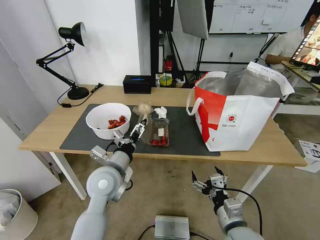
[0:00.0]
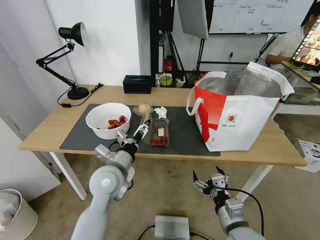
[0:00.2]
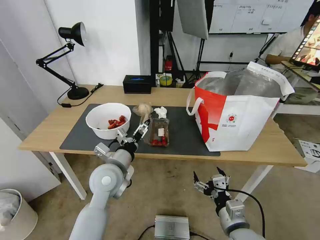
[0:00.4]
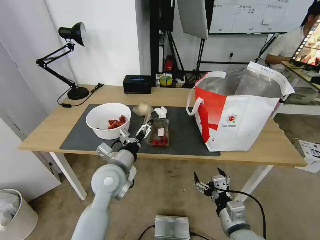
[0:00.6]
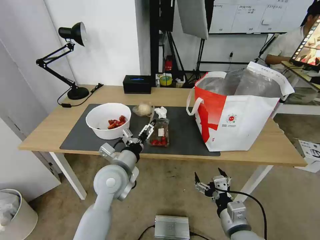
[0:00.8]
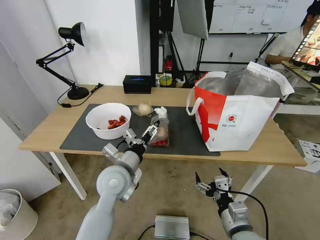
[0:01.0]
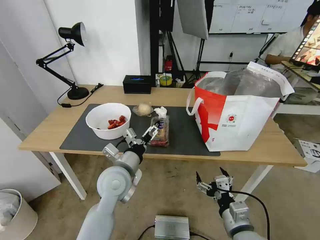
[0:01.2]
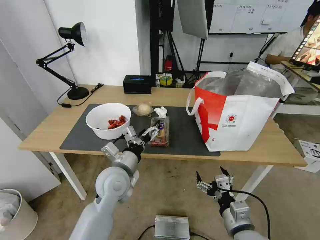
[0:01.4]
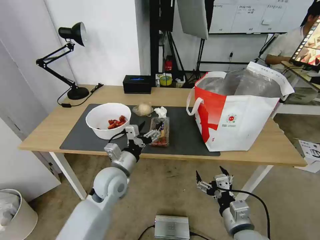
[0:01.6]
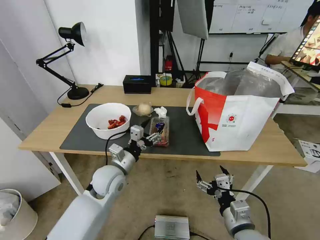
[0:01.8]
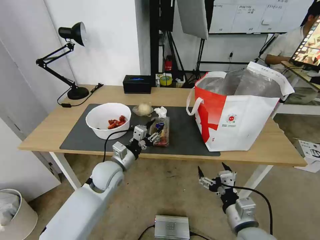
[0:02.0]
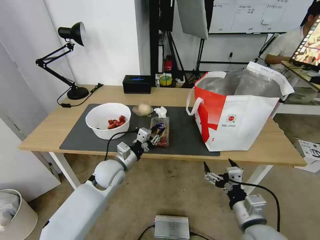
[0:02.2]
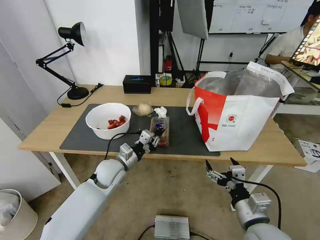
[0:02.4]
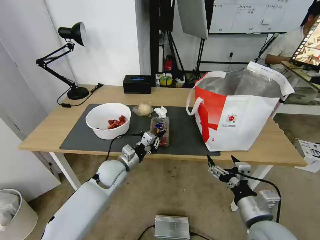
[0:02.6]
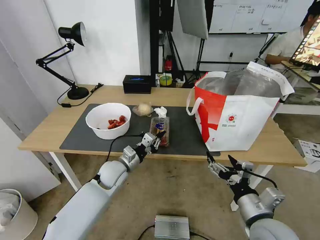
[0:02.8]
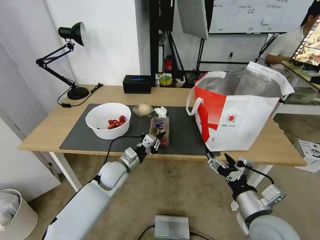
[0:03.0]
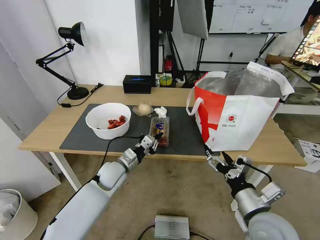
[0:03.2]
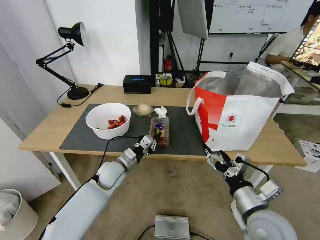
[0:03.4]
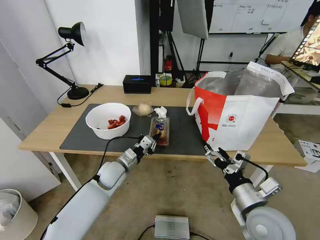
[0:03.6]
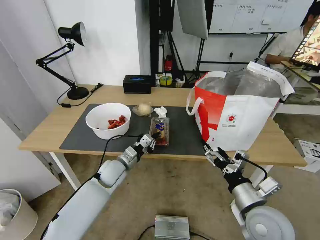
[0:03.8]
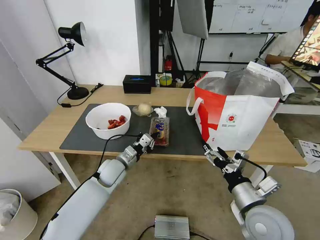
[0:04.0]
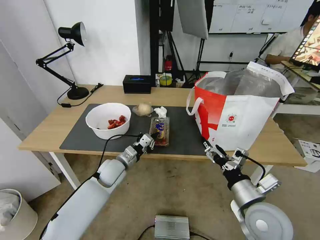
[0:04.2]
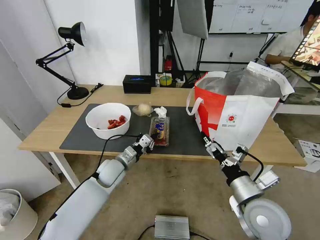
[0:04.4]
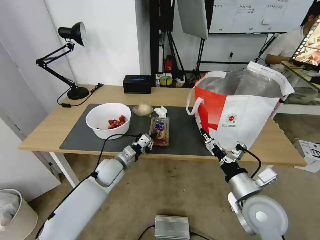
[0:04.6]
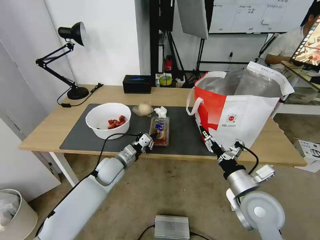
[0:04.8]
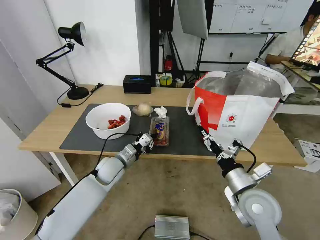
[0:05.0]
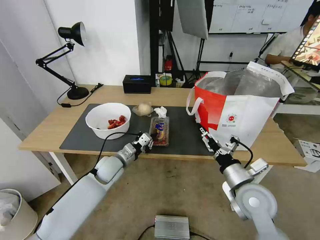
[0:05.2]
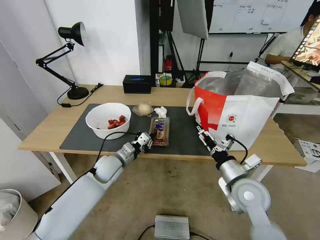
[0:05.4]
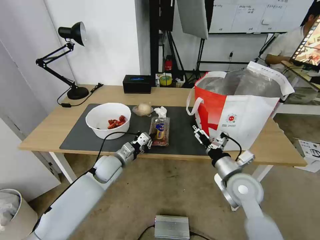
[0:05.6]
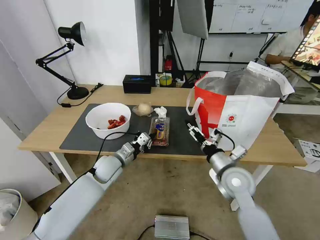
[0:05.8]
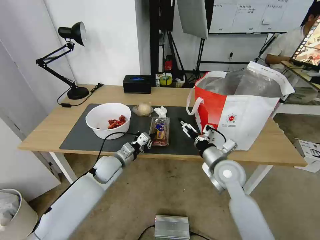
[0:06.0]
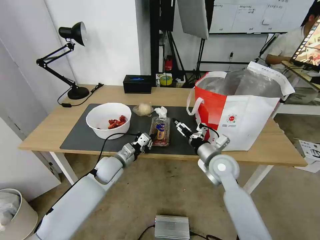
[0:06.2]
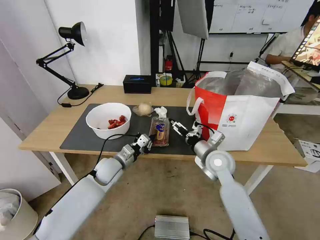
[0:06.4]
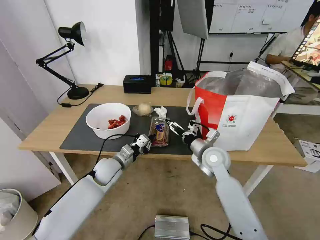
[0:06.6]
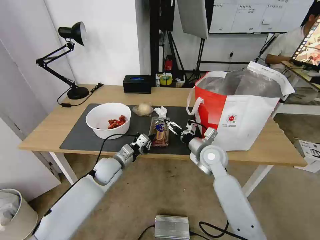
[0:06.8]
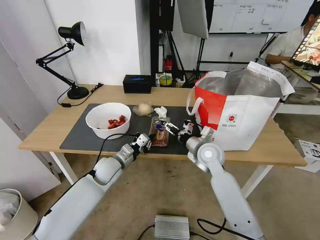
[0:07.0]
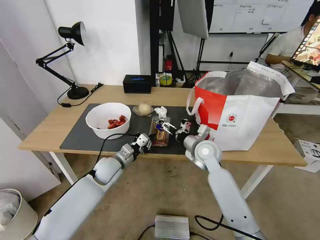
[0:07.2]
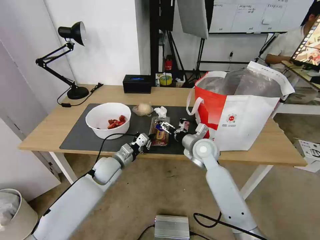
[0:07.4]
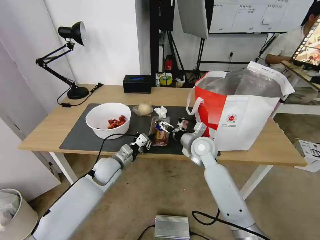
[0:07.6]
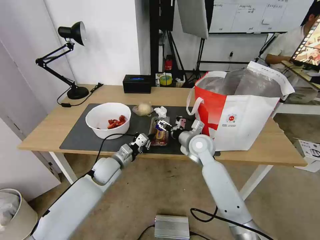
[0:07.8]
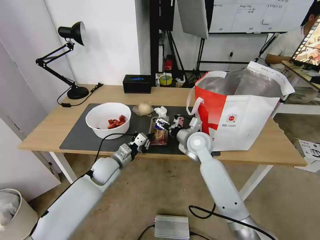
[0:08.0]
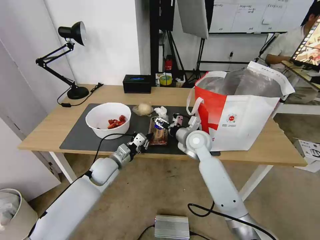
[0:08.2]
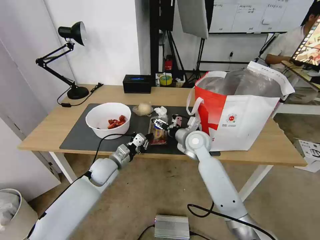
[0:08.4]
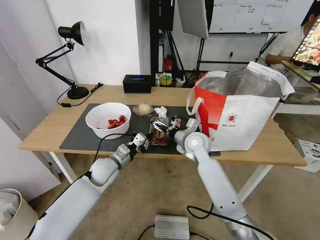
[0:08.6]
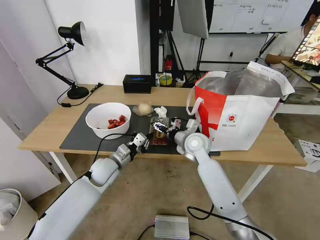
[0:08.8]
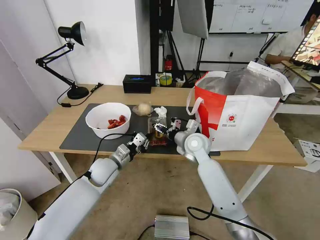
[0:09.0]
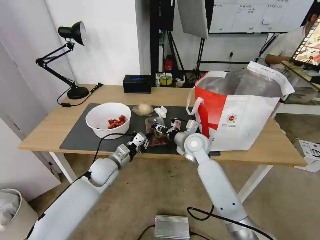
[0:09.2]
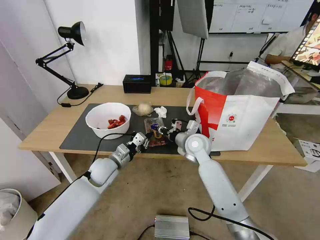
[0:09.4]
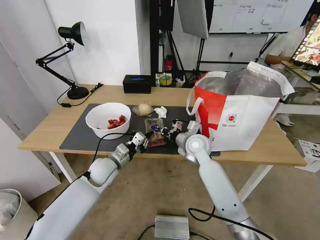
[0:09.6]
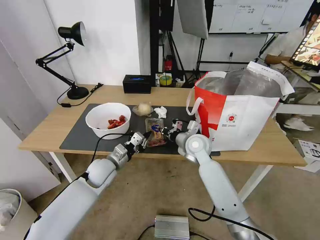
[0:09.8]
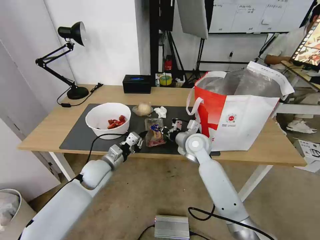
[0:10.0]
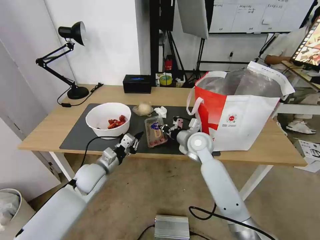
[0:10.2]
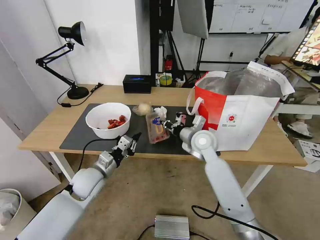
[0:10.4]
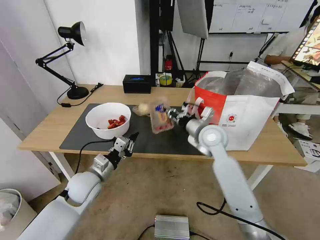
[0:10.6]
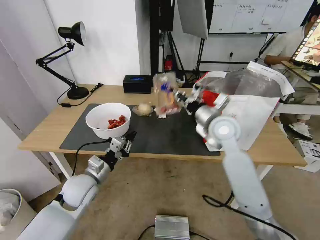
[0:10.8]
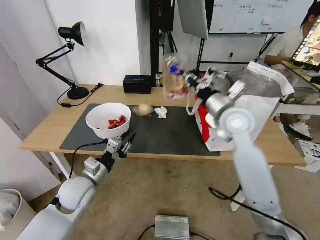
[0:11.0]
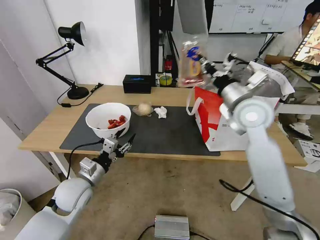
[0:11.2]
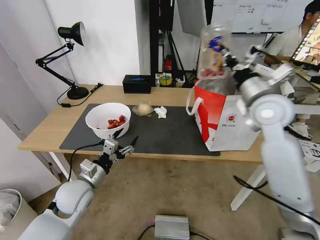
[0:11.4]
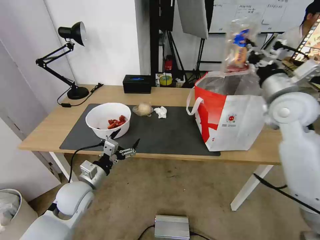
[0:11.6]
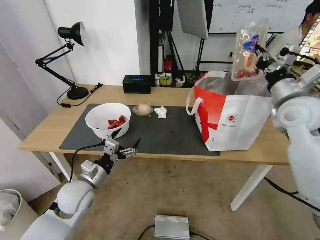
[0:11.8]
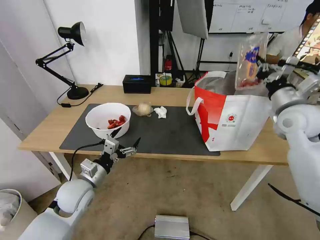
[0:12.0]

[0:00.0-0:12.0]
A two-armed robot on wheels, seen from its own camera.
Task of the whole recording: Pick up the trash from the table and place it into the takeout bag.
0:01.6 to 0:03.0: The right gripper shifts some 5 cm upward, while the left gripper is displaced downward and forward by approximately 10 cm, and closes up.
0:03.0 to 0:04.4: There are only small adjustments of the grippers.
0:04.4 to 0:06.0: The right gripper travels forward by approximately 15 cm.
0:06.0 to 0:07.6: The right gripper goes about 10 cm forward and to the left.
0:07.6 to 0:09.0: The grippers stay close to where they were, moving slightly.
0:09.0 to 0:10.4: The right gripper closes its fingers. The left gripper travels backward by approximately 5 cm.
0:10.4 to 0:12.0: The left gripper opens up. Meanwhile the right gripper goes about 25 cm to the right and upward.

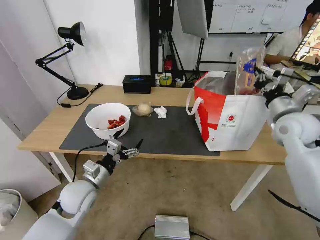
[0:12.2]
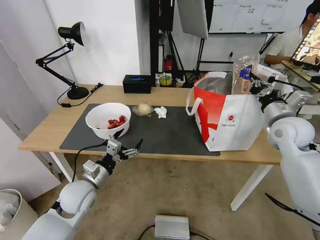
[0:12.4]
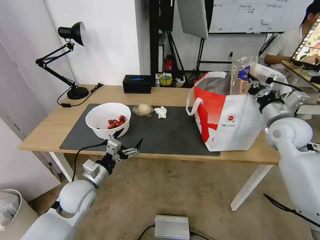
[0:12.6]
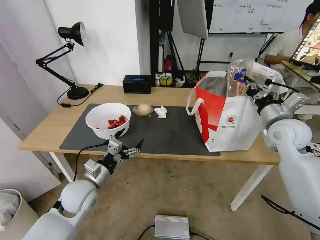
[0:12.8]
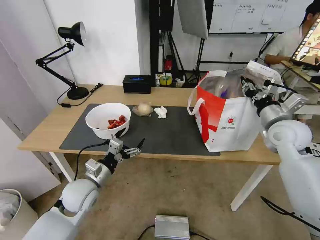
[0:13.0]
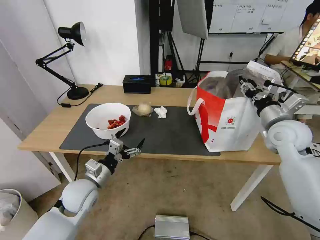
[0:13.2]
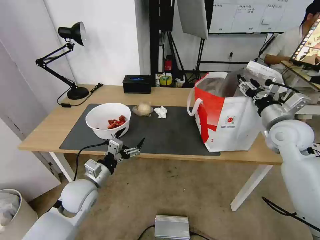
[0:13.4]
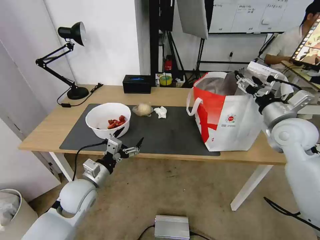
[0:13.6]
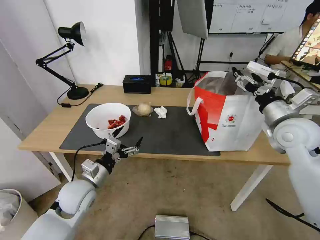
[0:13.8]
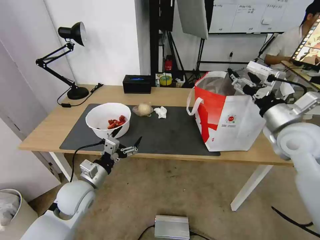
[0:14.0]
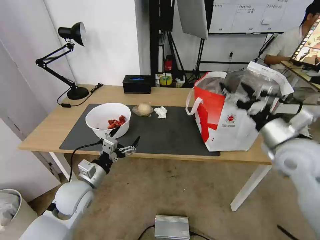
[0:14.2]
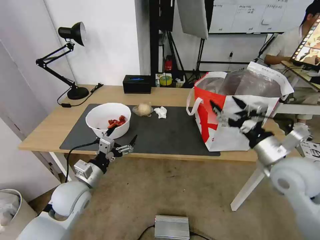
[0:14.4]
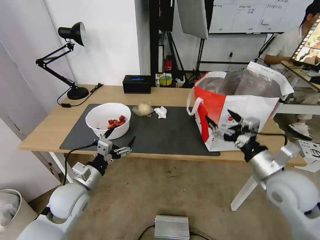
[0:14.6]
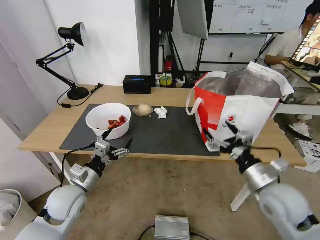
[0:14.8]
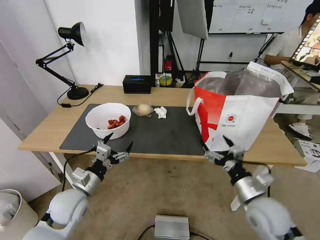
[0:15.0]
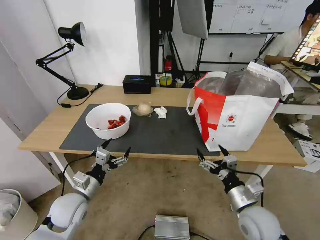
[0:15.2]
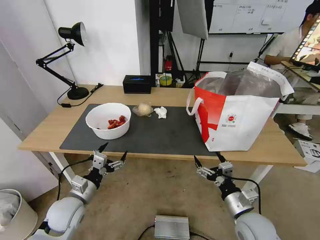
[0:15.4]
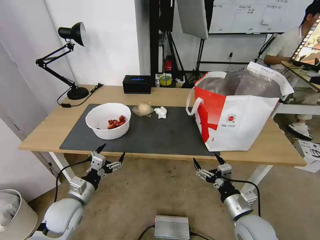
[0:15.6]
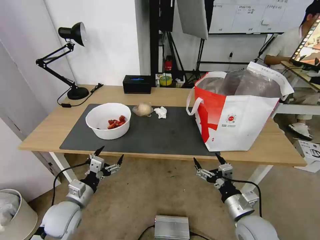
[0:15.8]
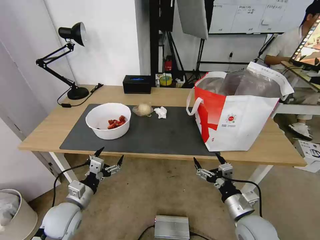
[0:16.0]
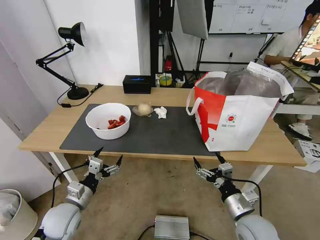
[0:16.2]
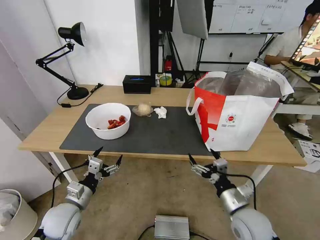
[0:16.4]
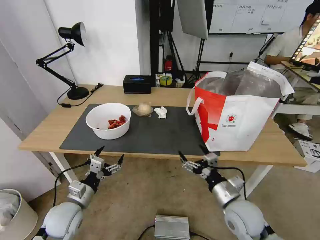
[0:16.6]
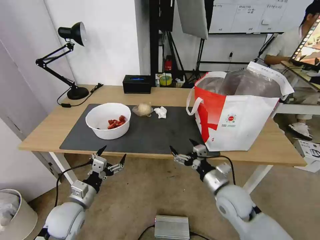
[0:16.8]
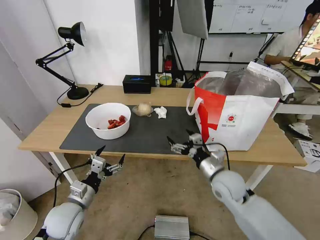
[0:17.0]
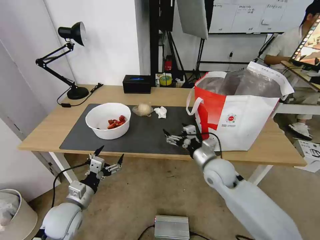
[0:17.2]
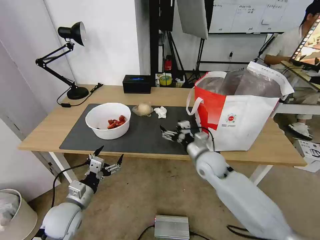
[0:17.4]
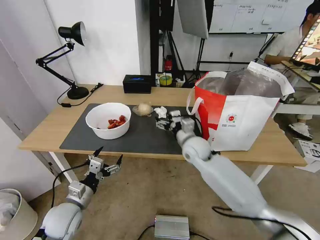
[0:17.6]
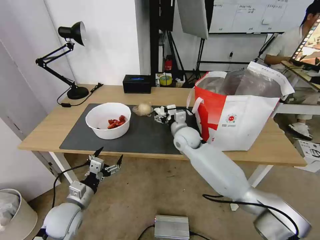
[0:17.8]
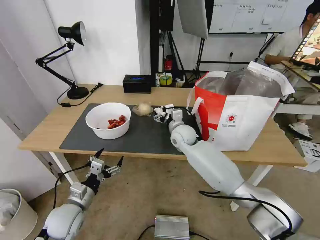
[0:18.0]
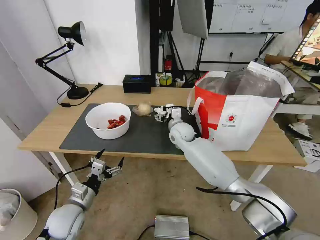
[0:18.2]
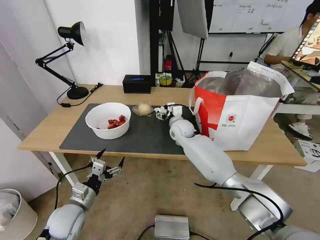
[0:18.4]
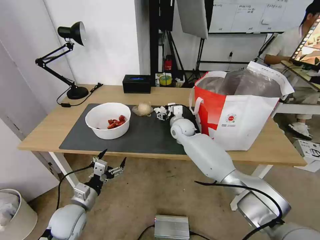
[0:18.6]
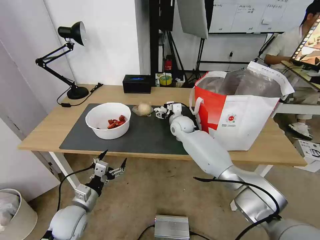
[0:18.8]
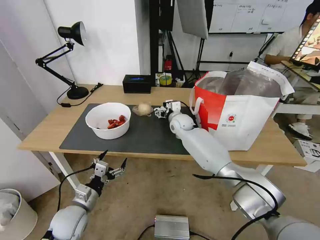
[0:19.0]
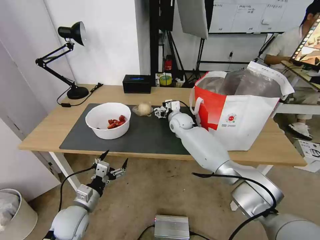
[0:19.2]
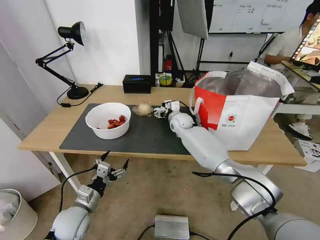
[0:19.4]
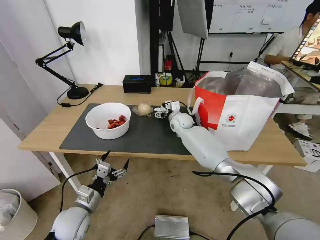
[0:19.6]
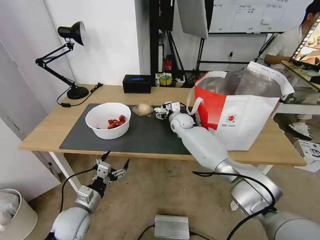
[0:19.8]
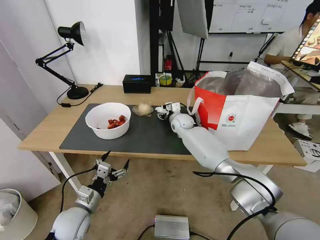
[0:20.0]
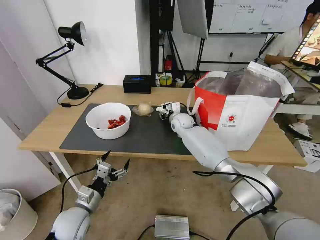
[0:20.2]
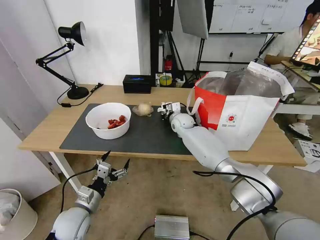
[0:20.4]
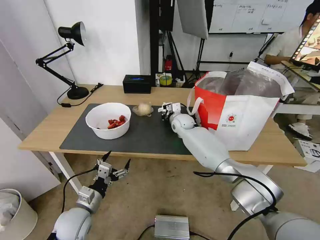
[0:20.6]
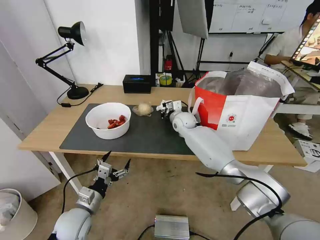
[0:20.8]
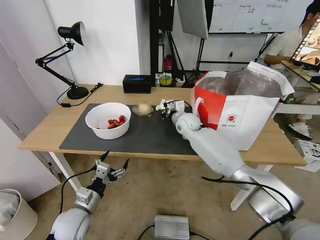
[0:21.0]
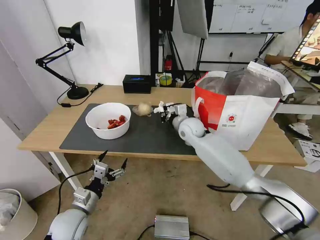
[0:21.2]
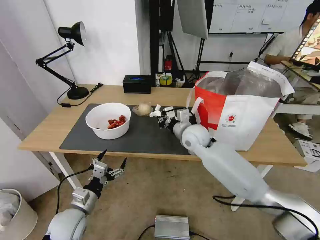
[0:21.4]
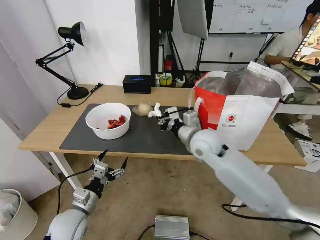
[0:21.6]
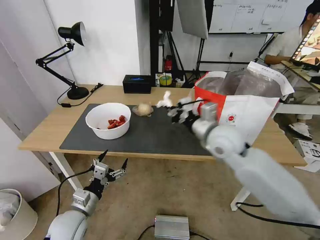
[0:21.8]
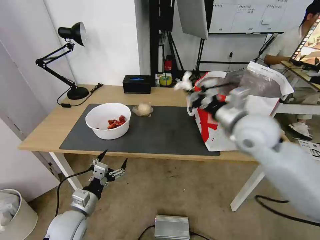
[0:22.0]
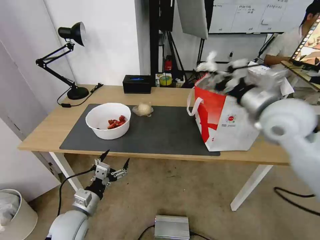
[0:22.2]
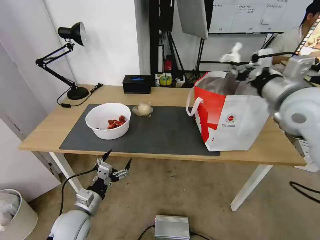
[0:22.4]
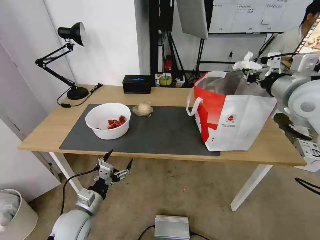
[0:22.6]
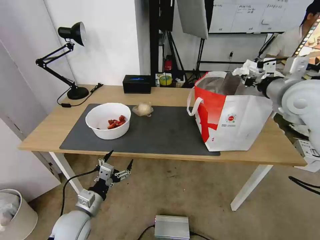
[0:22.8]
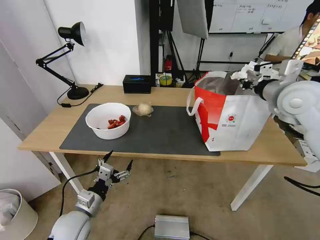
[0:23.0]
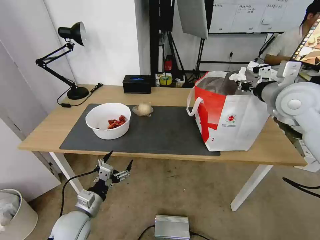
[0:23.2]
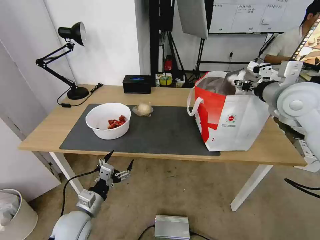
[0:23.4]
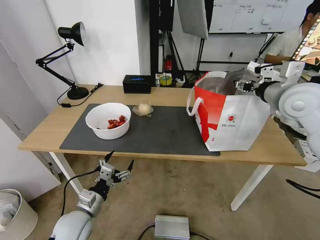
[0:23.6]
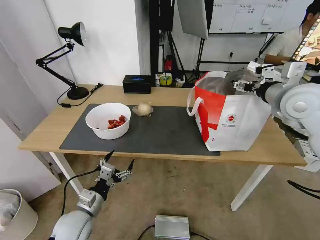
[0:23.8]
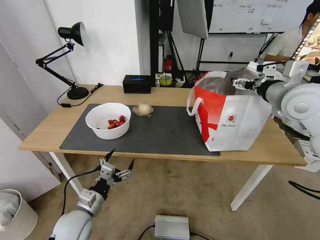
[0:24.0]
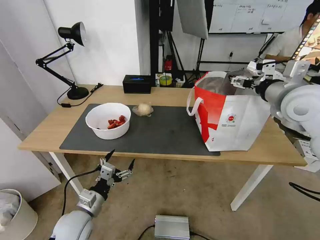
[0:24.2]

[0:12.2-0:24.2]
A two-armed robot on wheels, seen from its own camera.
Task of the whole recording: Pick up the trash from the table and place it into the takeout bag.
0:12.2 to 0:13.8: The right gripper opens.
0:13.8 to 0:15.2: The right gripper travels downward and backward by approximately 20 cm.
0:15.2 to 0:16.6: The right gripper goes about 10 cm to the left and downward, while the left gripper shifts by about 5 cm.
0:16.6 to 0:18.2: The right gripper heads forward and to the left, covering approximately 35 cm.
0:18.2 to 0:19.8: The right gripper moves forward, some 5 cm.
0:19.8 to 0:21.2: The right gripper travels backward by roughly 10 cm, and closes its fingers.
0:21.2 to 0:22.6: The right gripper moves to the right, upward and backward, about 35 cm.
0:22.6 to 0:24.2: The right gripper opens.
